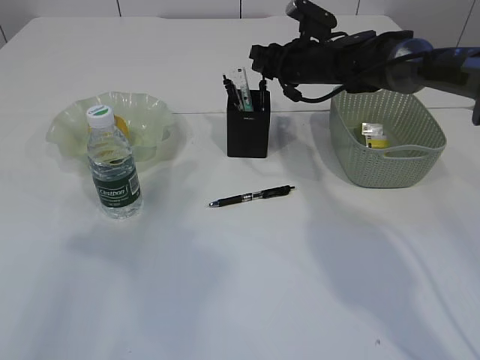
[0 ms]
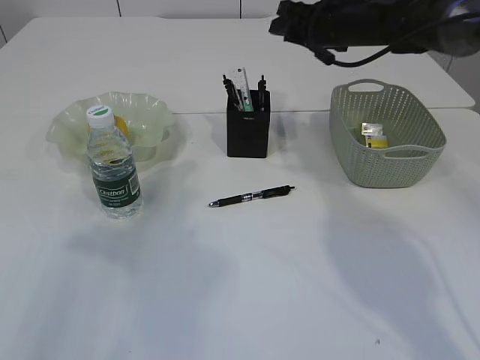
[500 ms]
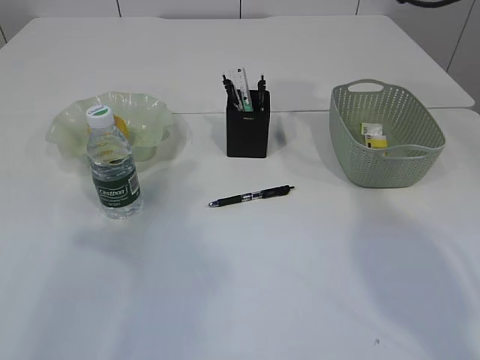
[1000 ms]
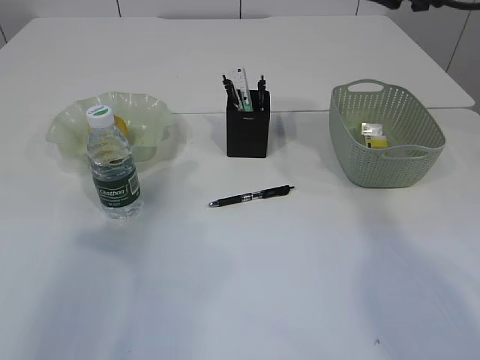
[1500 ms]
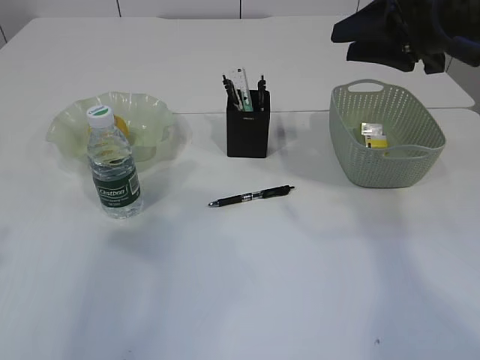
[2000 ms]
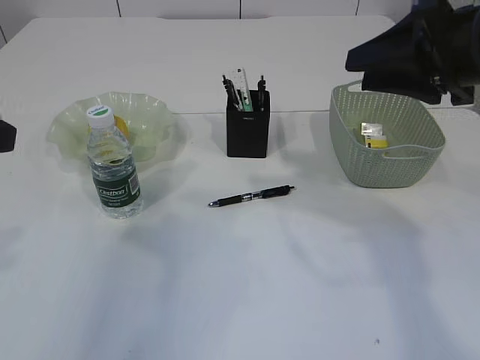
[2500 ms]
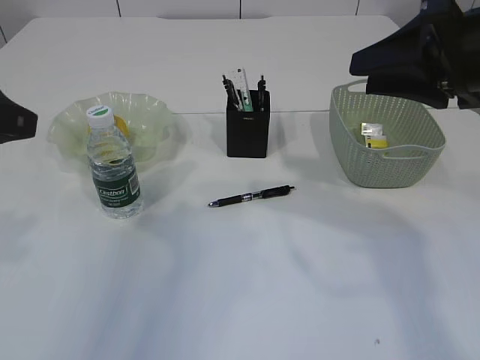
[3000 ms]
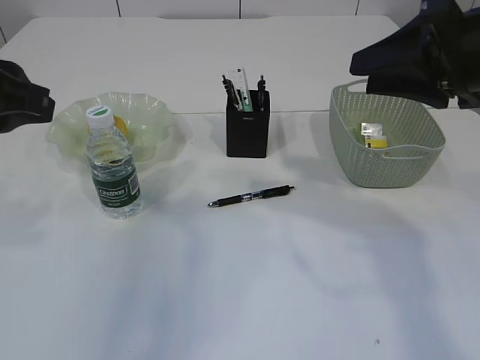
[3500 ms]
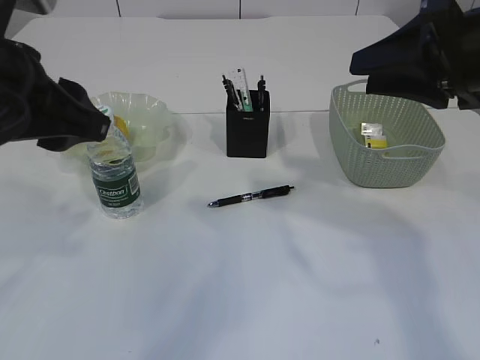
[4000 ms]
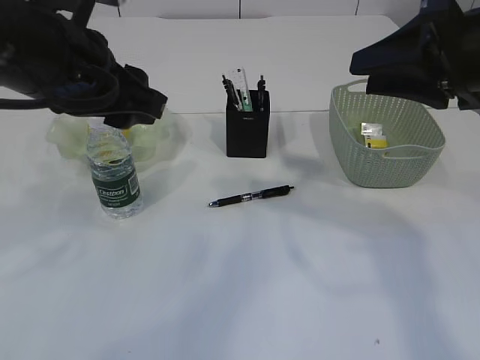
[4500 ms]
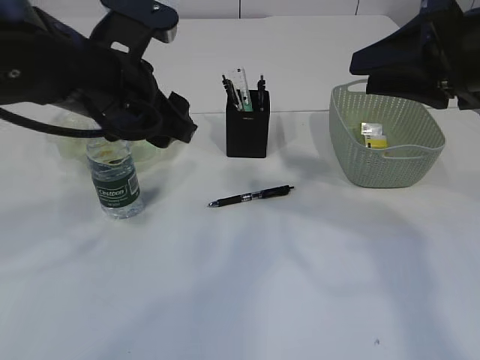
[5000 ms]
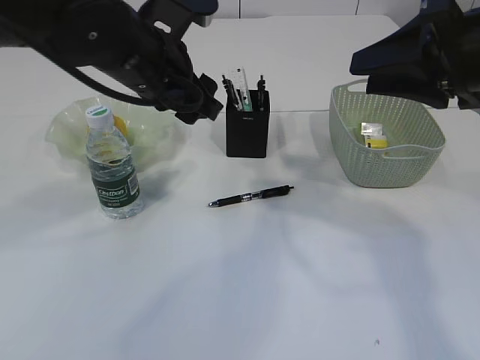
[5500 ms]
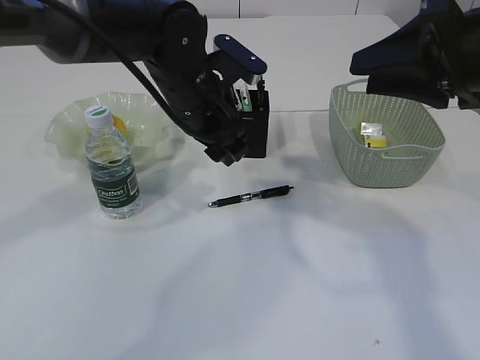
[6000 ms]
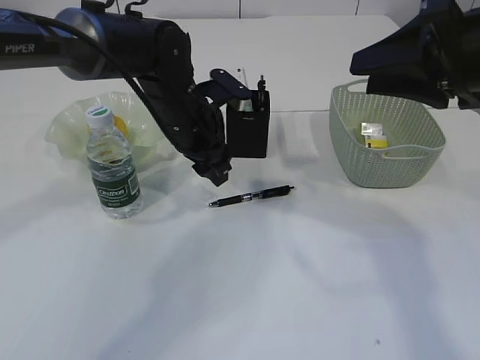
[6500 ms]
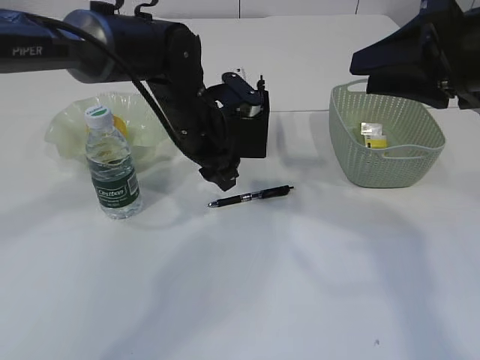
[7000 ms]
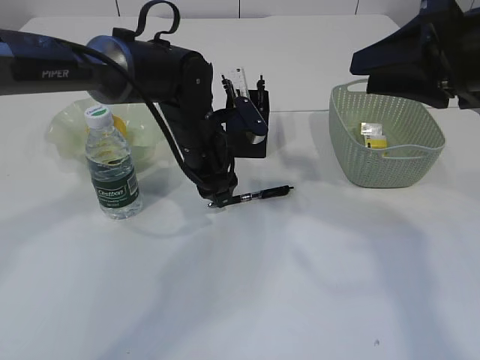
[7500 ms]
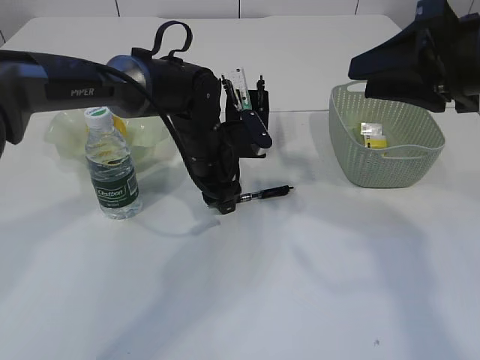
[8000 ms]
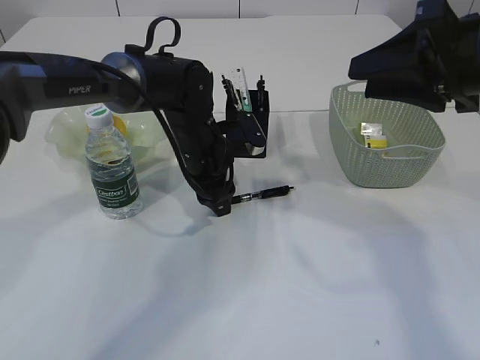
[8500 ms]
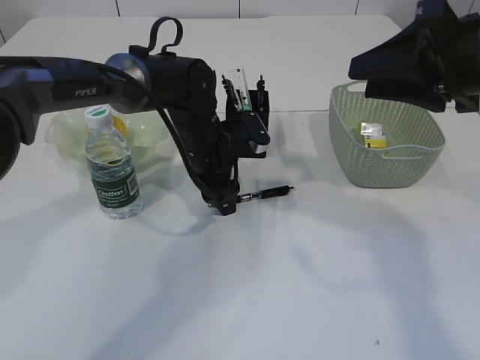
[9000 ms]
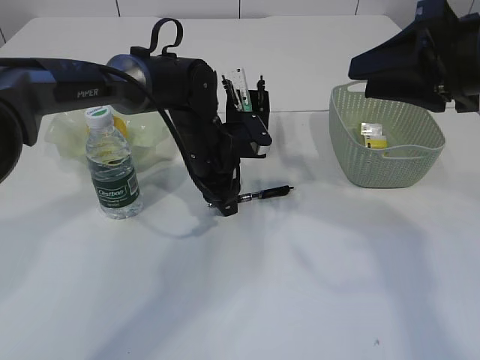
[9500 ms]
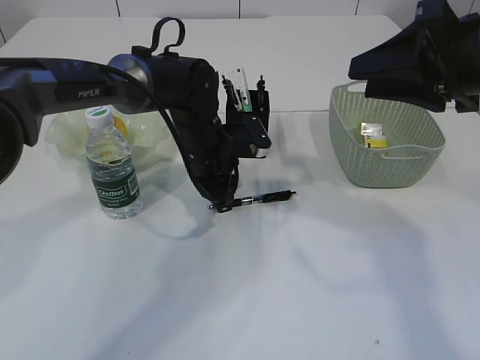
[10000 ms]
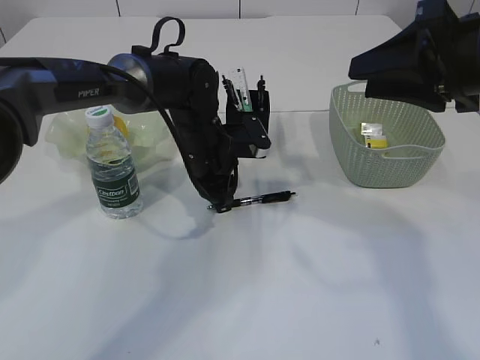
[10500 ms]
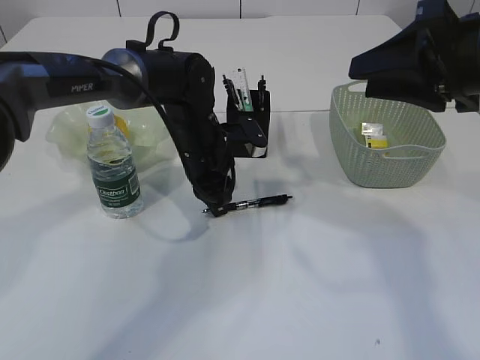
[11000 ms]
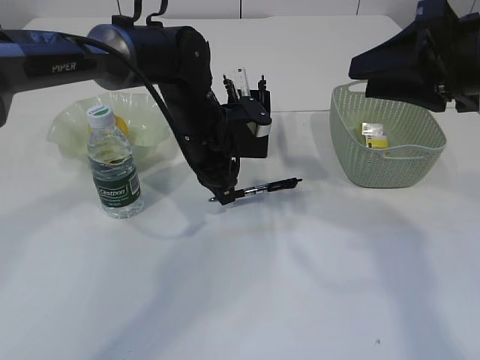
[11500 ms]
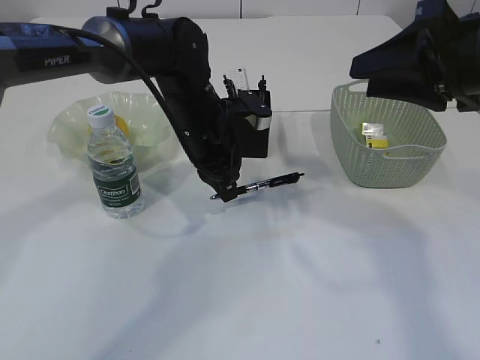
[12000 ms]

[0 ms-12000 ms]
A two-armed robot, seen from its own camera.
0 ms to 2000 ms: The right gripper shifts roughly 25 cm backward, upward and to the right.
2000 ms to 4000 ms: The left gripper is displaced to the right by some 5 cm. Meanwhile the right gripper shifts roughly 10 cm backward.
4000 ms to 6000 ms: The left gripper goes some 20 cm forward, to the right and downward, and opens.
6000 ms to 8000 ms: The left gripper shifts some 10 cm downward.
8000 ms to 10000 ms: The left gripper closes its fingers.
10000 ms to 12000 ms: The left gripper moves approximately 5 cm.

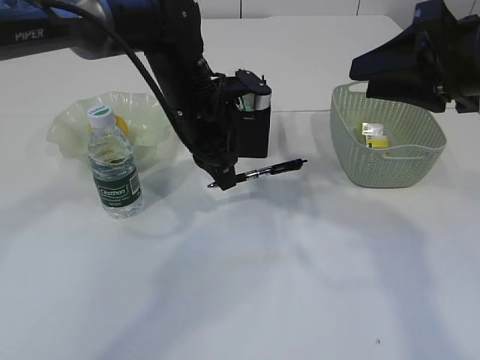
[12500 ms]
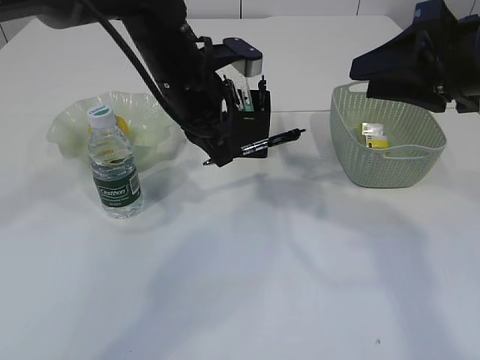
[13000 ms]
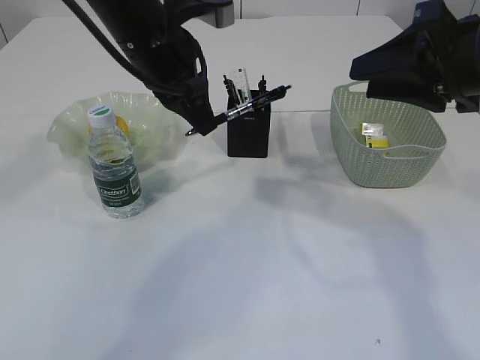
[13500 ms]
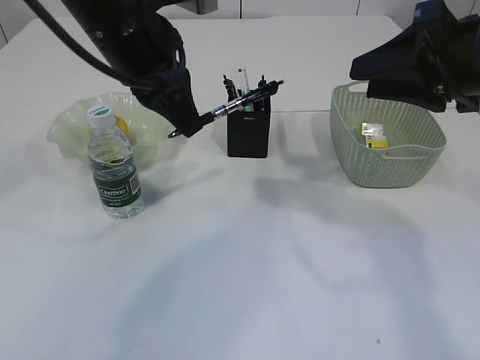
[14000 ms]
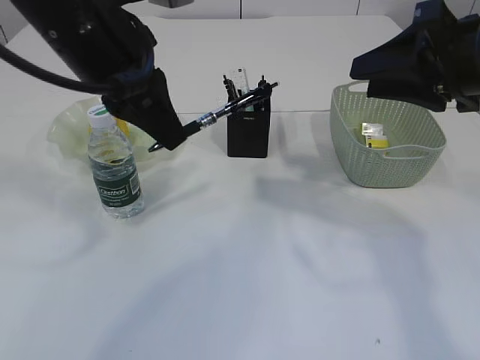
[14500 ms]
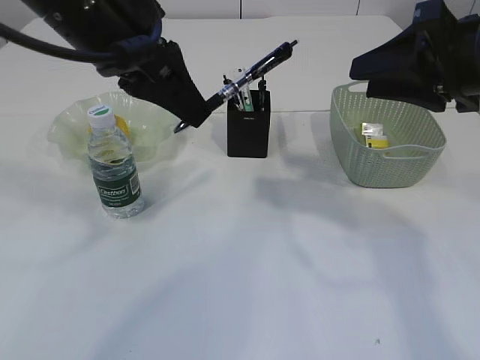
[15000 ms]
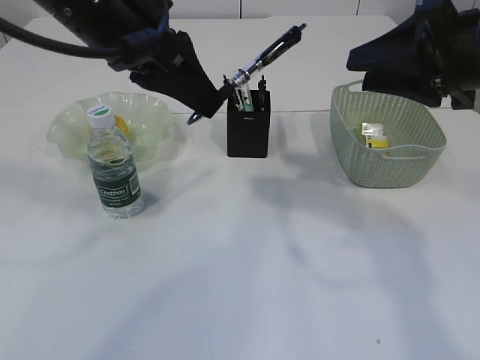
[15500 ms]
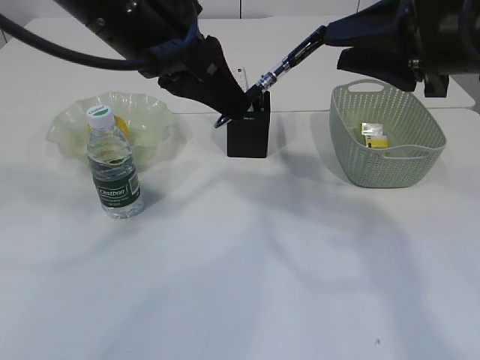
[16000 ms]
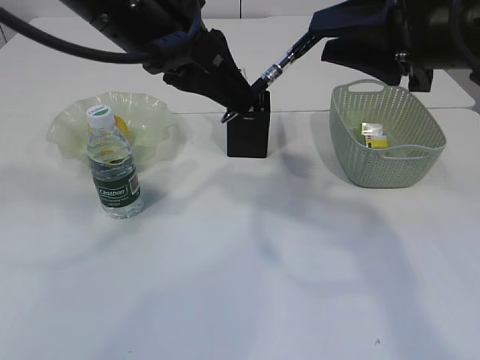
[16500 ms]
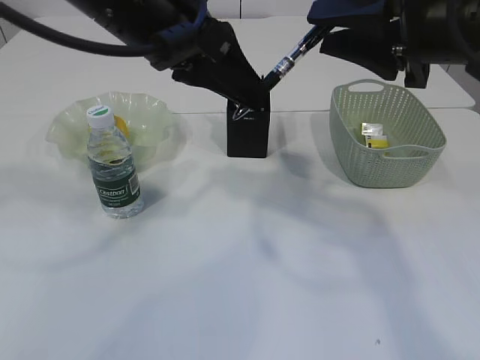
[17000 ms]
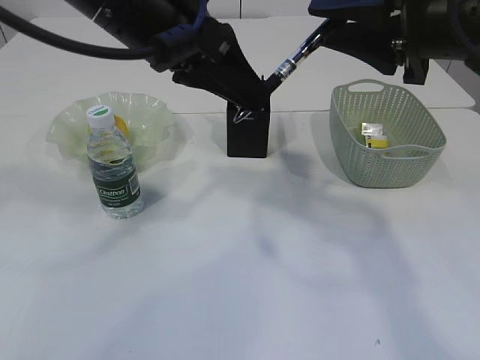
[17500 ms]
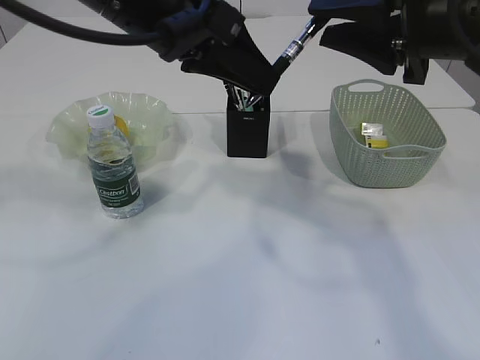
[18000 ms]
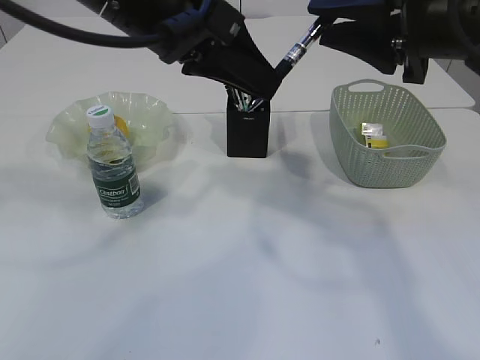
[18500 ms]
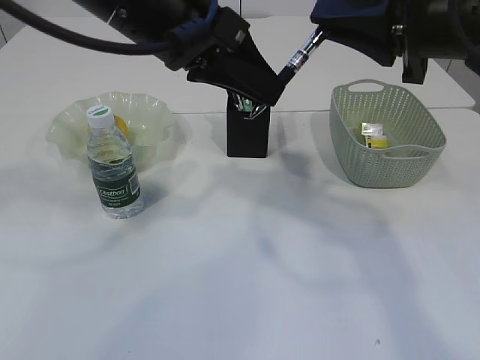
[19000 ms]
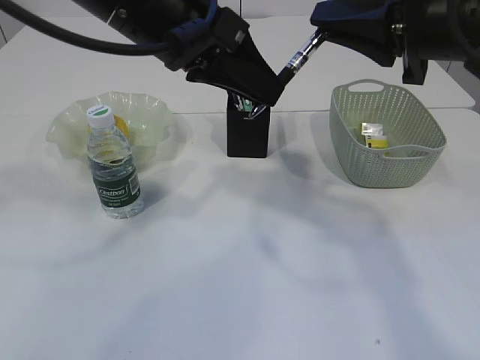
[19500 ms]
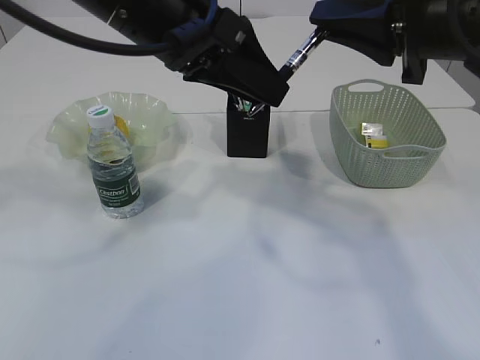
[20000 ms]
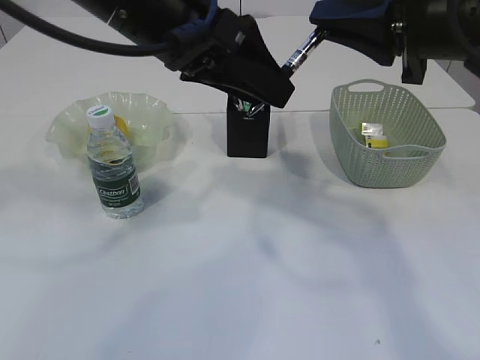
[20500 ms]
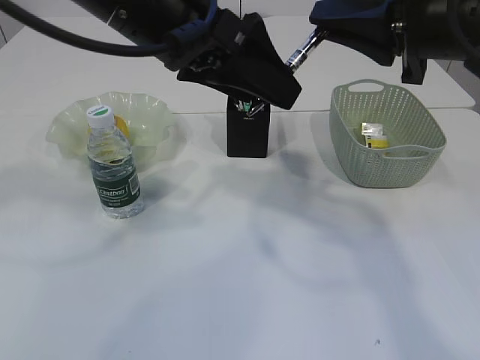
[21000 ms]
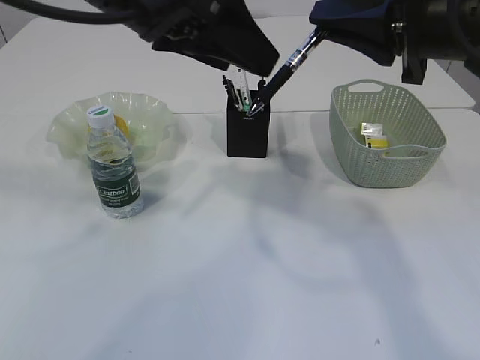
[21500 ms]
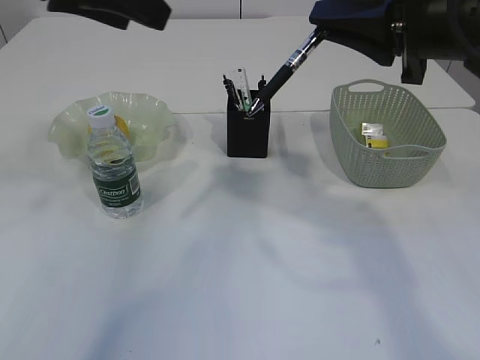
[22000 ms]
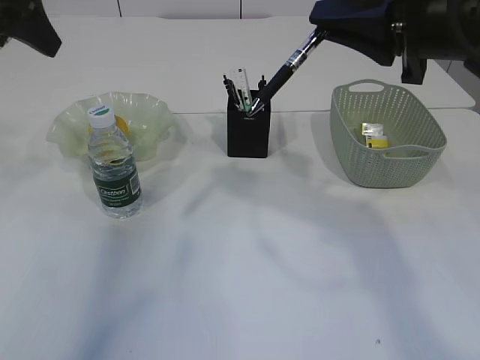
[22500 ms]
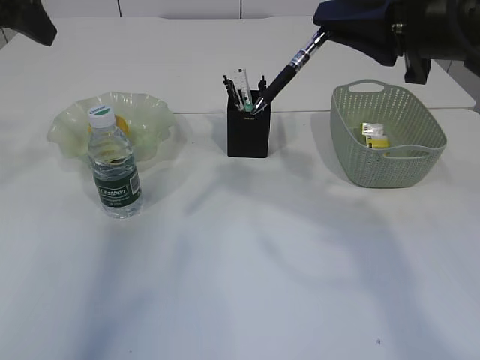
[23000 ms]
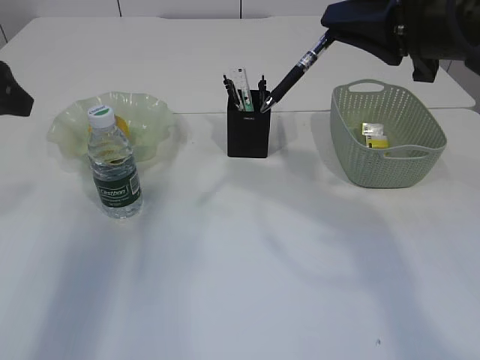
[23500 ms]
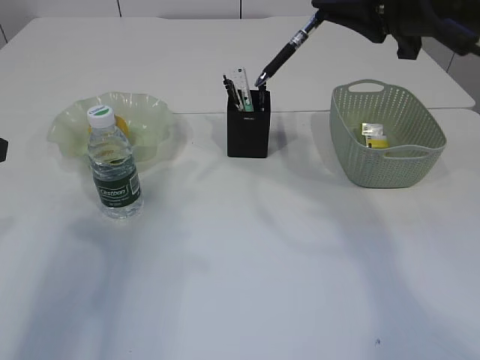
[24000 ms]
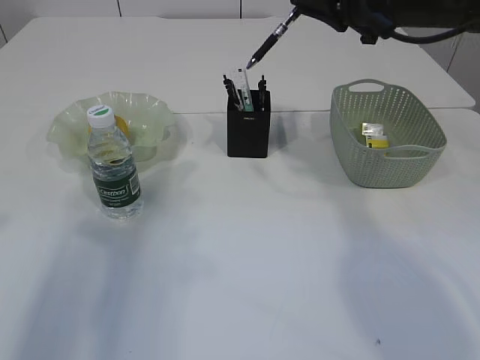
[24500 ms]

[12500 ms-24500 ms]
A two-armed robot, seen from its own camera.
12500 ms to 14500 ms: The left gripper travels upward, backward and to the left by some 15 cm.
14500 ms to 16500 ms: There are only small adjustments of the grippers.
16500 ms to 18500 ms: There are only small adjustments of the grippers.
18500 ms to 20500 ms: The right gripper closes its fingers. Meanwhile the left gripper opens.
20500 ms to 22500 ms: The left gripper travels to the left by some 20 cm.
22500 ms to 24500 ms: The left gripper travels backward and downward by about 15 cm, while the right gripper heads forward, covering some 15 cm.

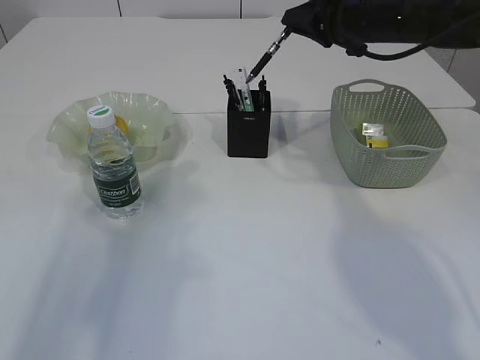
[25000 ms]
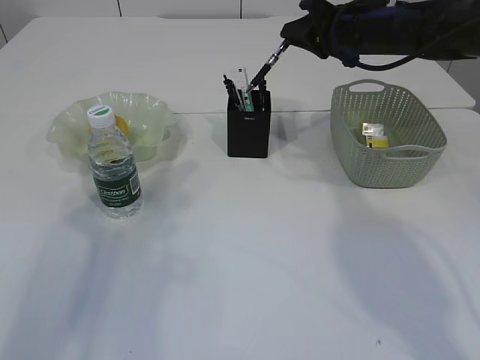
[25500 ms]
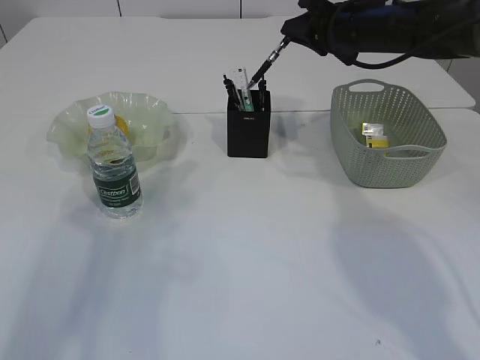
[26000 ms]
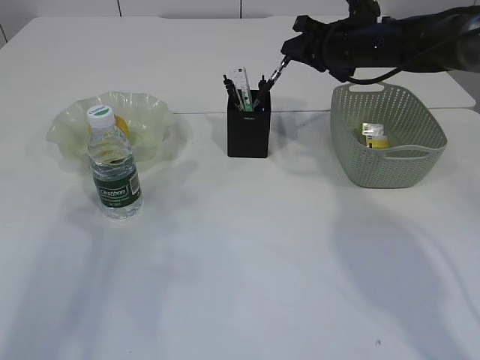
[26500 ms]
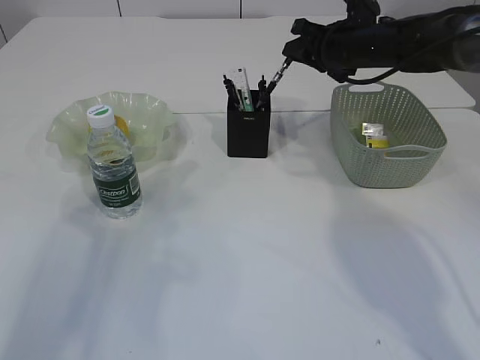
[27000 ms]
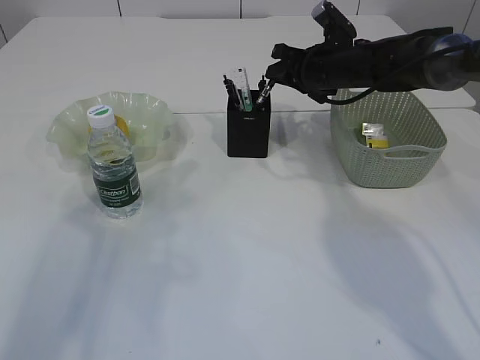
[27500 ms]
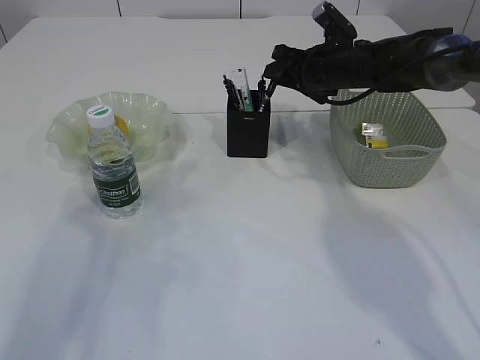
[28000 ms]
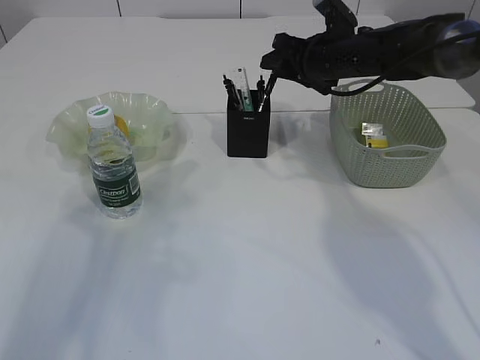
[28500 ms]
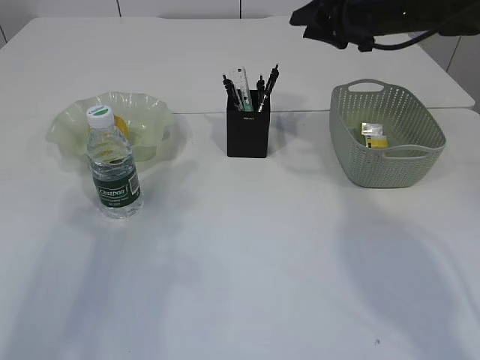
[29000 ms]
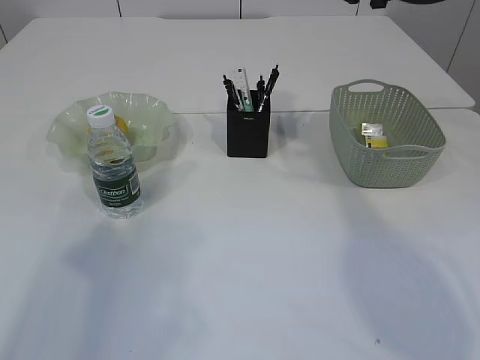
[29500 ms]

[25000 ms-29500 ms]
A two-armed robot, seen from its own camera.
Step, 25000 ms to 29000 ms: Place the pen into the pen holder.
25000 ms to 27000 ms: The right gripper goes about 5 cm downward.
27000 ms to 29500 ms: The right gripper goes some 15 cm upward and backward, and opens its fingers, while the left gripper is displaced backward by approximately 5 cm.